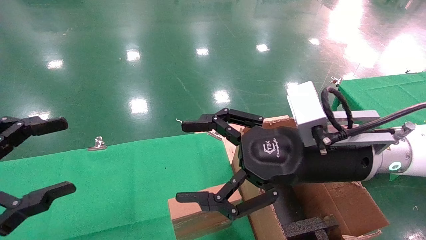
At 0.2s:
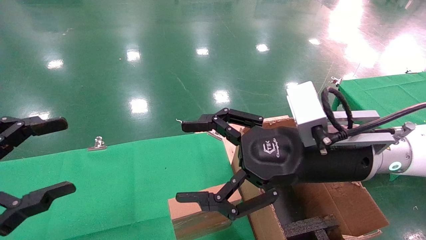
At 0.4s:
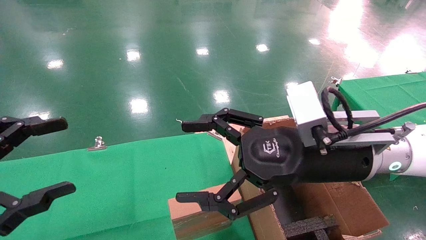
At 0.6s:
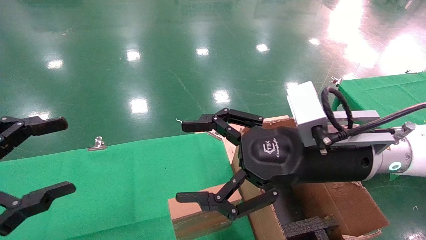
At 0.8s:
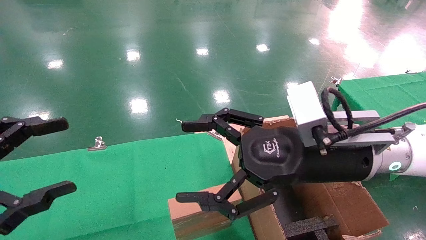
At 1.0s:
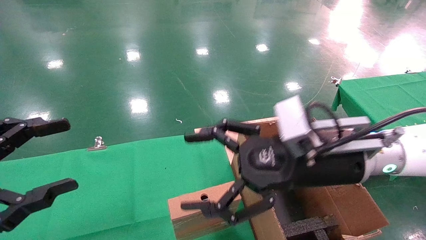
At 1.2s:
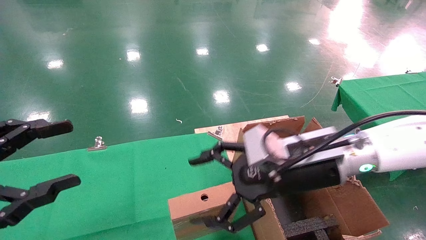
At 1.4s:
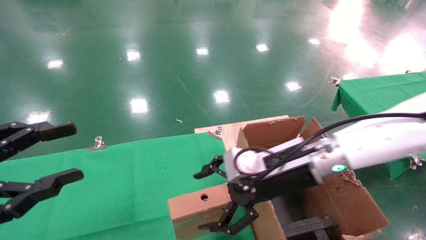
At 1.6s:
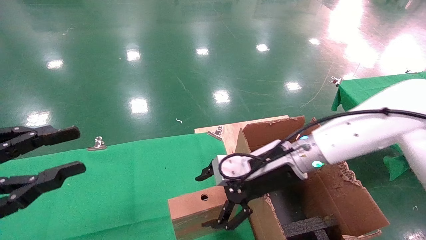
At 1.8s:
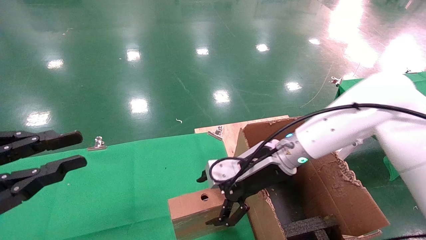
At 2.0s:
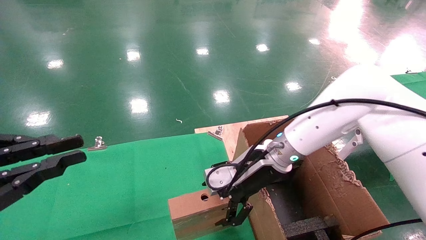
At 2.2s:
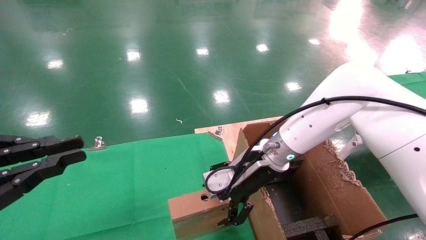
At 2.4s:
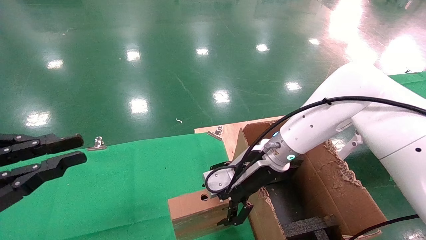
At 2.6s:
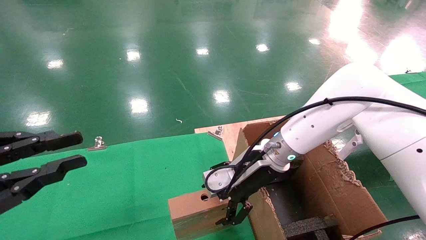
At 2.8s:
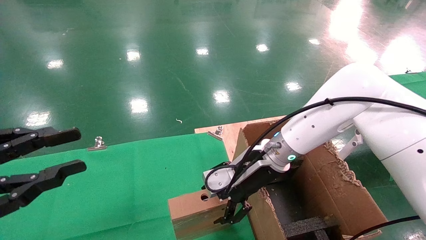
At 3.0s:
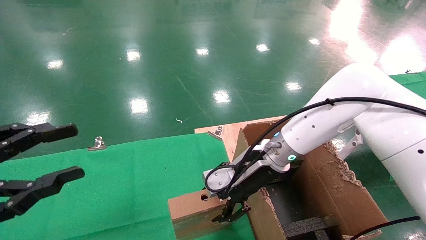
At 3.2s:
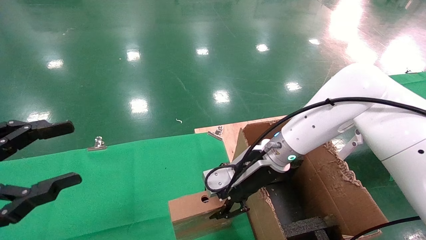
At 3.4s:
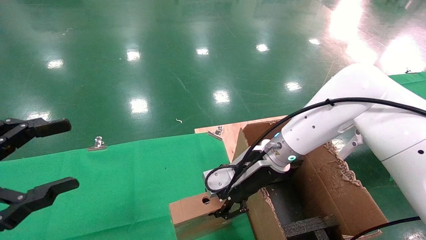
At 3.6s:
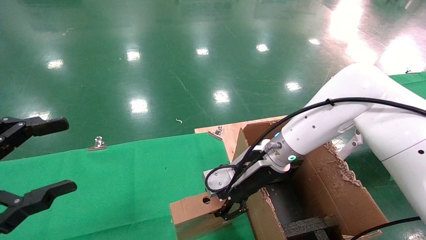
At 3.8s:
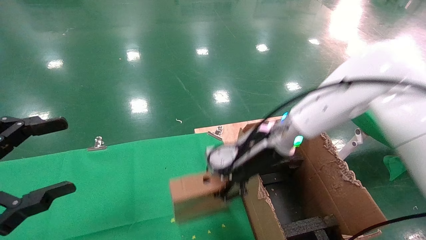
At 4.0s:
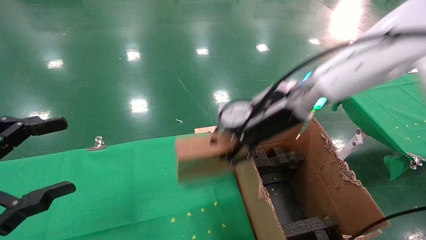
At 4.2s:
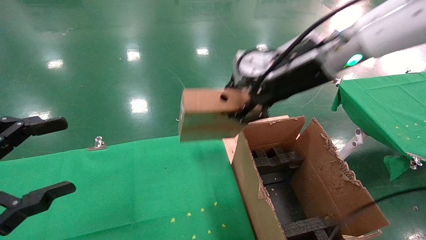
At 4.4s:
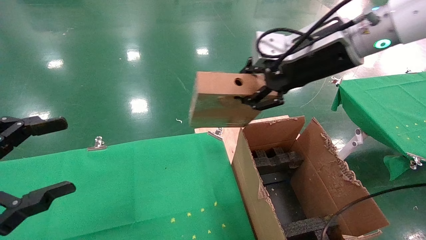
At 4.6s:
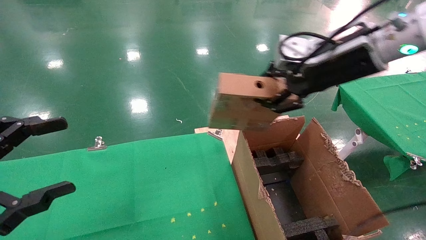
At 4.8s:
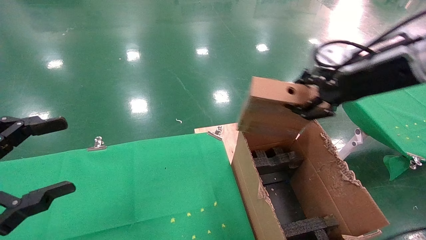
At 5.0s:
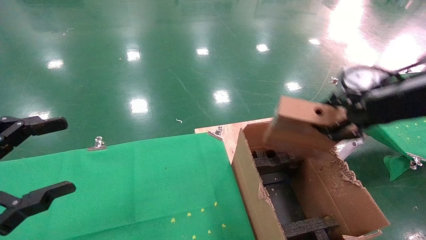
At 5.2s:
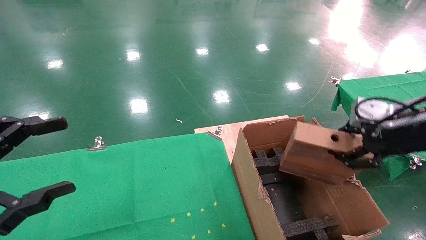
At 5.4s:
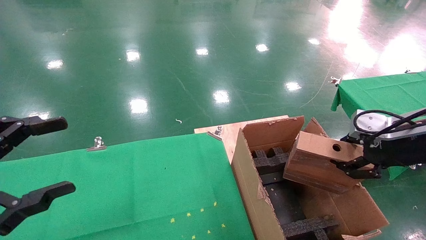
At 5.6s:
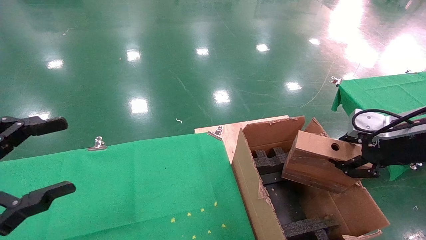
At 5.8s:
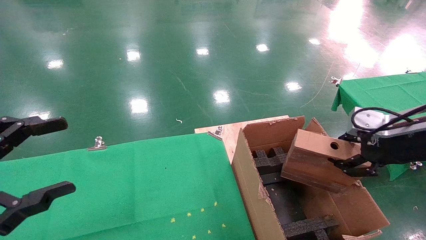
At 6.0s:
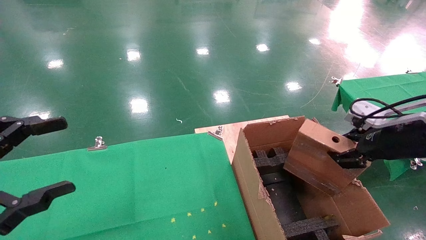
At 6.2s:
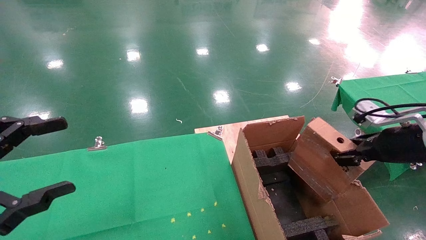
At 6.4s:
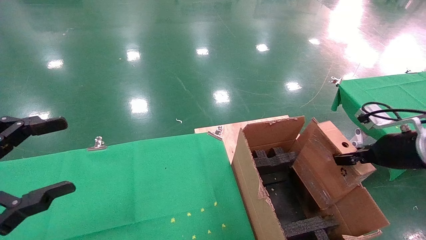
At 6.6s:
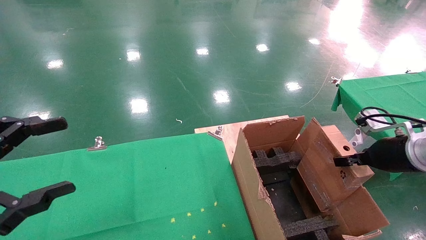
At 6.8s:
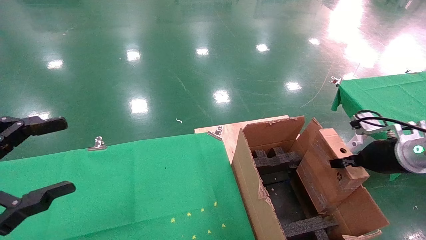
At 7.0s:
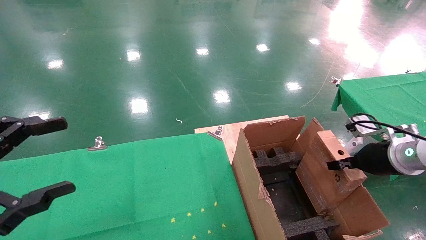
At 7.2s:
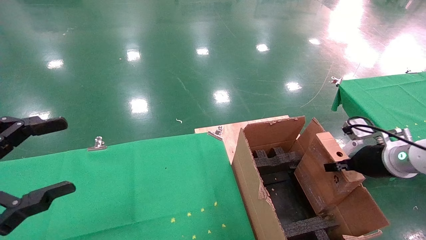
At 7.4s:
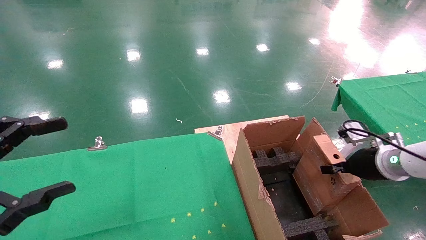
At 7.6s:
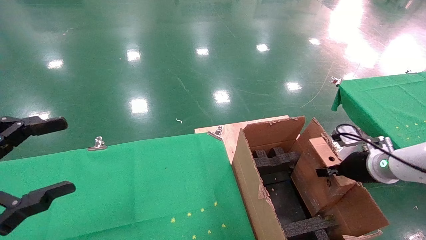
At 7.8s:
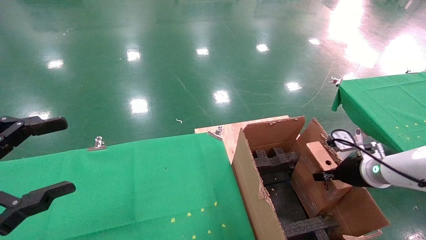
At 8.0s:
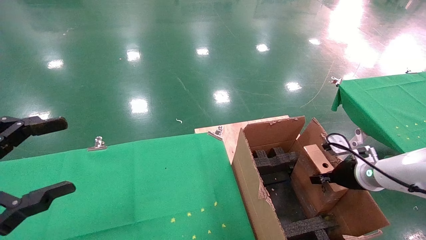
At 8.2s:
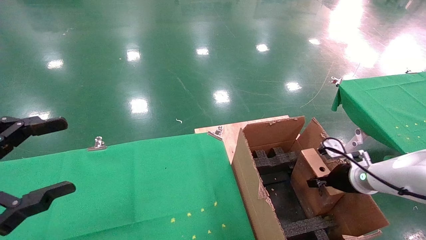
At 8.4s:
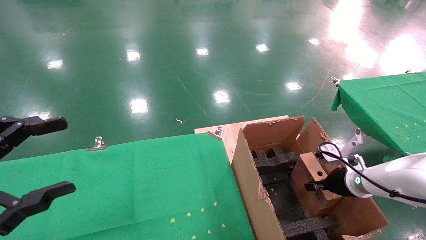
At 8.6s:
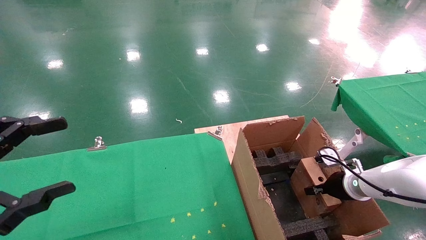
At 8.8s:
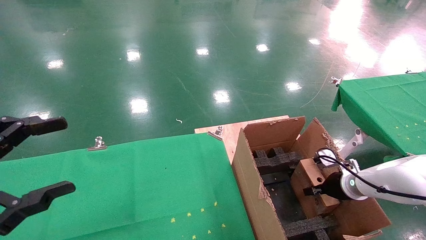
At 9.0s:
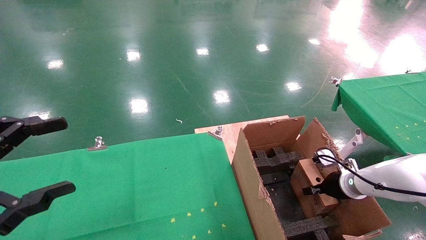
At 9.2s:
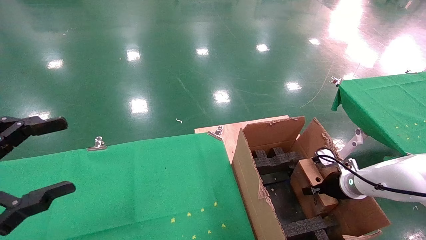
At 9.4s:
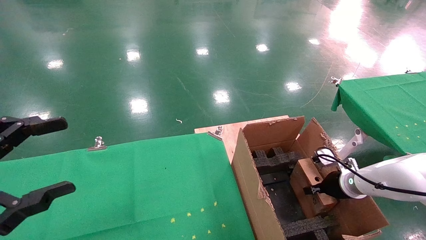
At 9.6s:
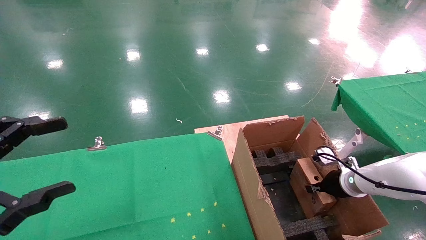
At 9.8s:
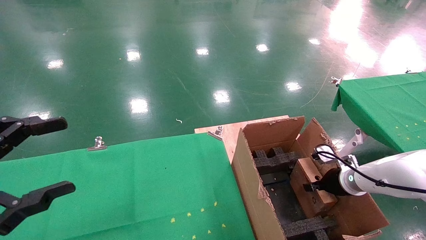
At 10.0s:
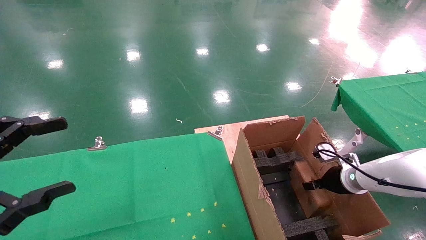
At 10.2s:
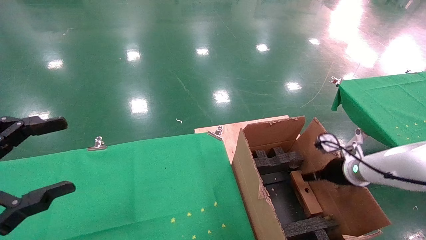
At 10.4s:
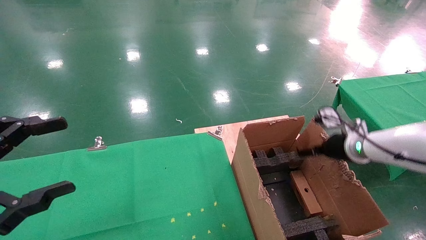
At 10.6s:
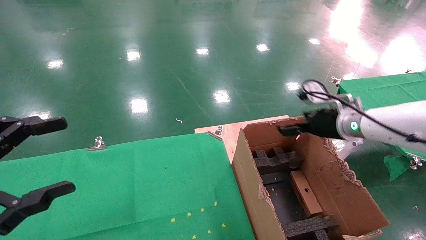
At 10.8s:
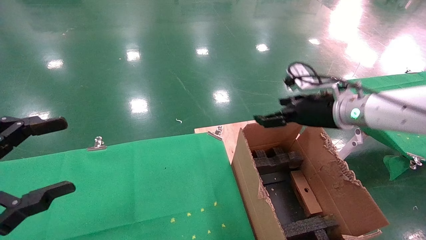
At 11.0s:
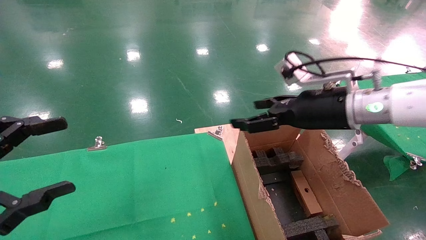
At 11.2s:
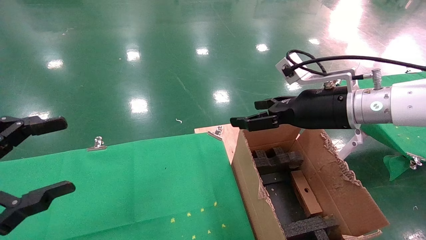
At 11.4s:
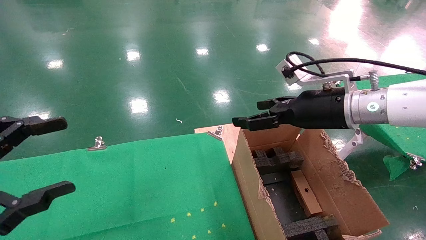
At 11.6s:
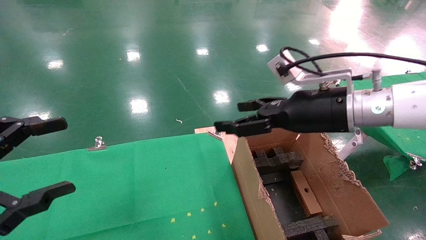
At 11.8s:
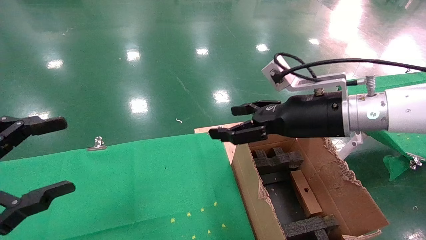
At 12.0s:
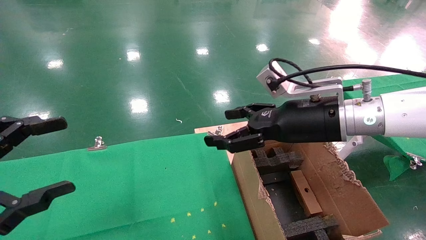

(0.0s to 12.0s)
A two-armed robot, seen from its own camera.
Task of the whole recording: using a robotic arm to pick up a cardboard box and palace it the carton.
Step, 1.0s - 3.4s: Pick up the mouse and the power cord paper box.
Step, 3.6s - 10.6s: Place the mouse and the power cord paper box into the container.
0.0s - 1.6s: The right gripper shifts some 10 cm forward and downward; the left gripper closes up.
1.6s - 3.0s: The grippers make only small movements.
3.0s - 4.4s: The right gripper goes approximately 20 cm upward and to the right, and closes up, while the left gripper opens up.
4.4s - 6.0s: The right gripper shifts some 20 cm to the right, downward and backward.
6.0s - 7.6s: The right gripper shifts approximately 15 cm downward and forward.
7.6s - 9.0s: The right gripper moves downward, some 10 cm.
9.0s - 10.4s: The right gripper shifts some 10 cm upward, and opens up.
10.4s - 12.0s: The right gripper moves to the left, upward and backward, roughly 20 cm.

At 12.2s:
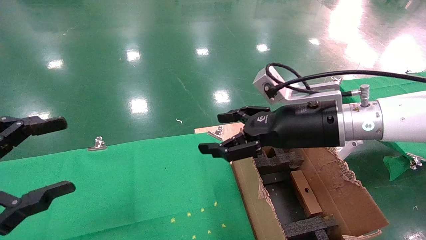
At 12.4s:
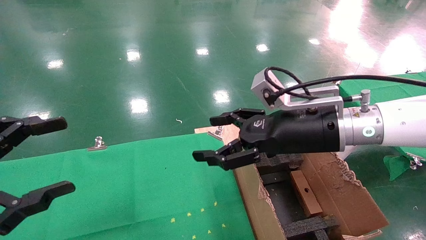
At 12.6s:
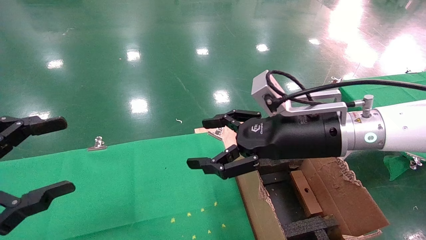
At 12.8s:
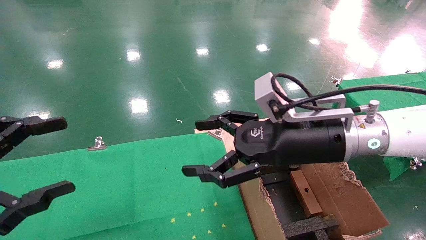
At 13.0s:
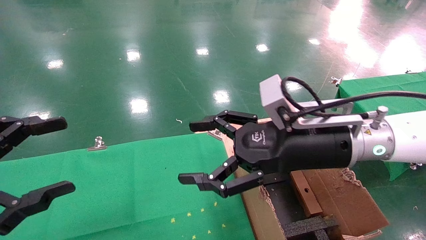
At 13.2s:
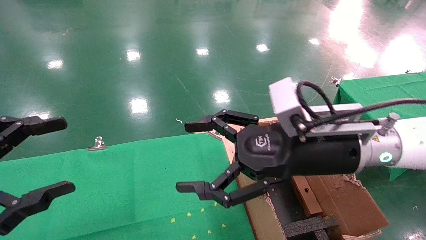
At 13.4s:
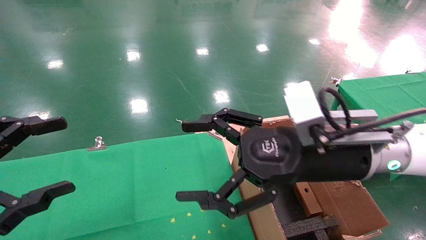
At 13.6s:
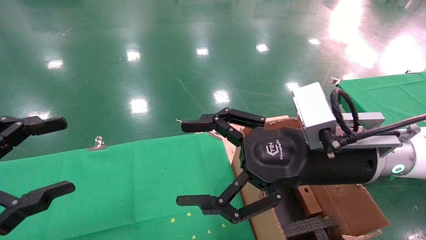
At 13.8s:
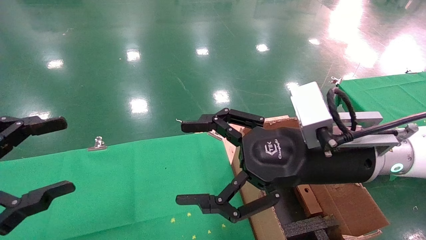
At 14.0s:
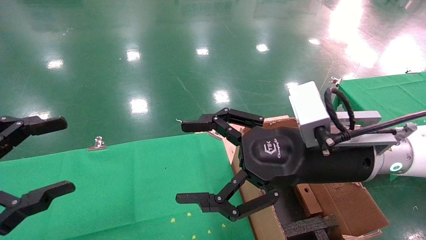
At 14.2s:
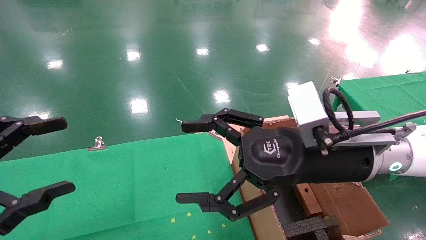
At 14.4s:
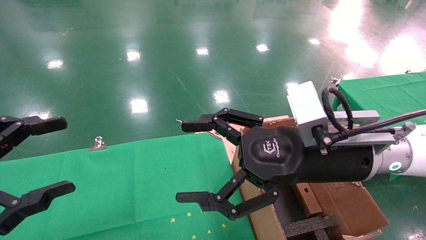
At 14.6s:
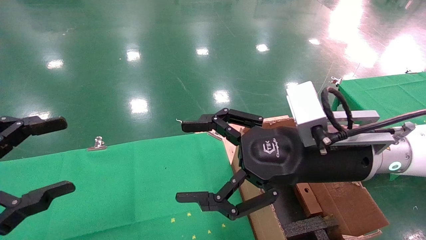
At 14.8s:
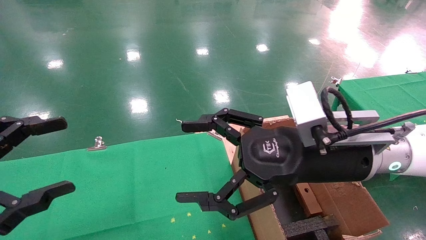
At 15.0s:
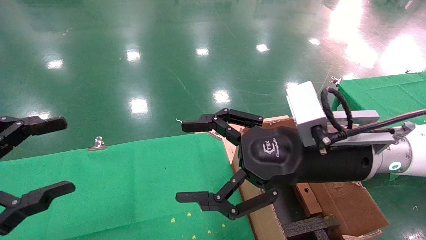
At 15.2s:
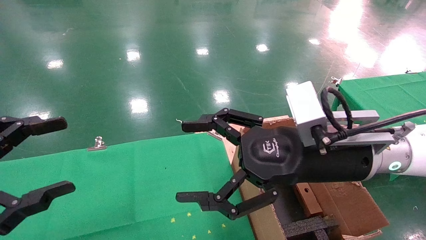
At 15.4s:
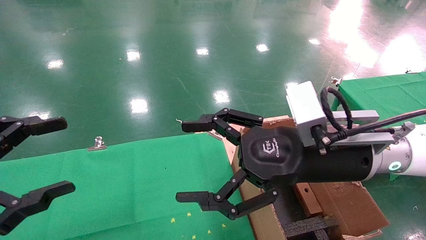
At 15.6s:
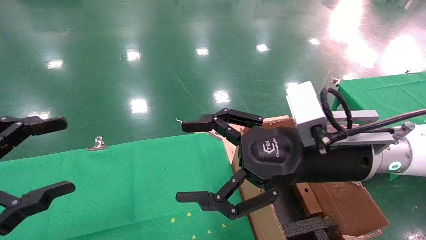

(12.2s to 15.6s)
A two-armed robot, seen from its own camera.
Task of the whole recording: using a robotic arm to pick up a cardboard box and palace it the carton.
12.2s - 13.8s: The right gripper shifts some 5 cm backward.
13.8s - 15.6s: Both grippers stay put.

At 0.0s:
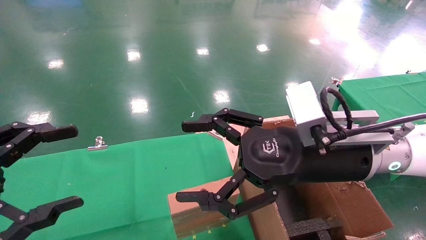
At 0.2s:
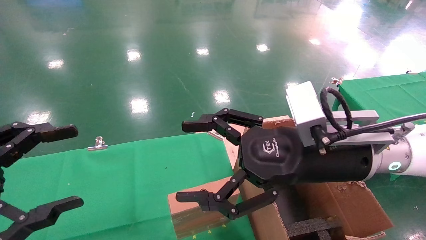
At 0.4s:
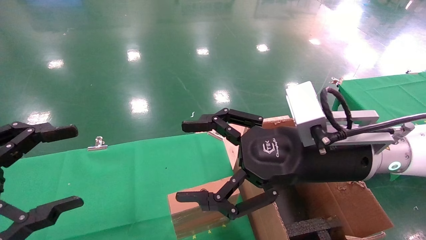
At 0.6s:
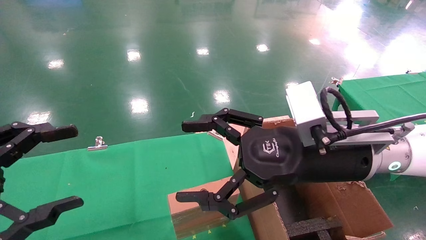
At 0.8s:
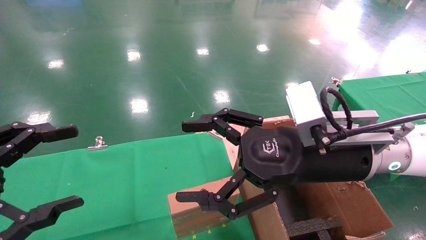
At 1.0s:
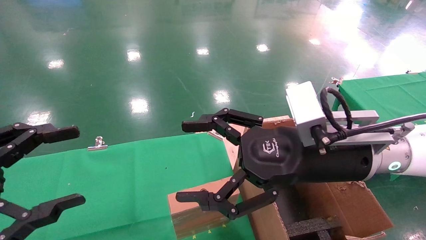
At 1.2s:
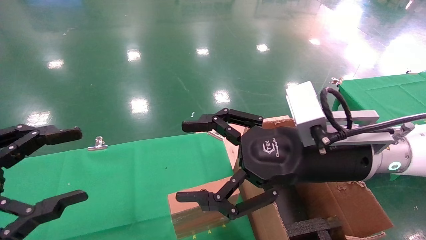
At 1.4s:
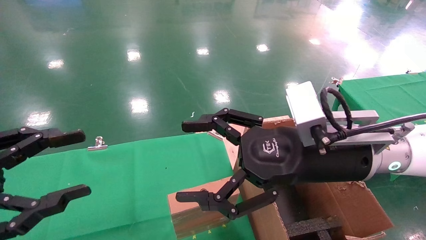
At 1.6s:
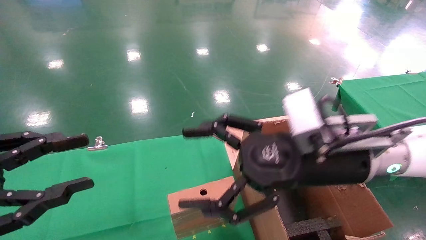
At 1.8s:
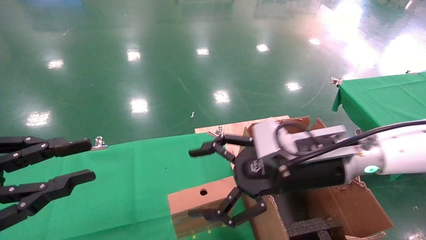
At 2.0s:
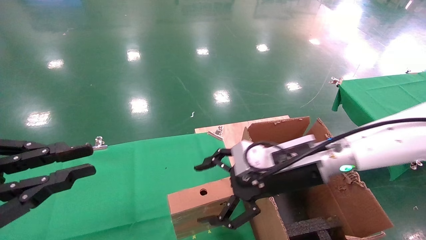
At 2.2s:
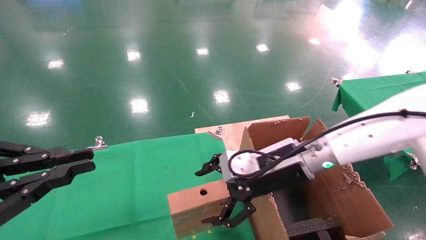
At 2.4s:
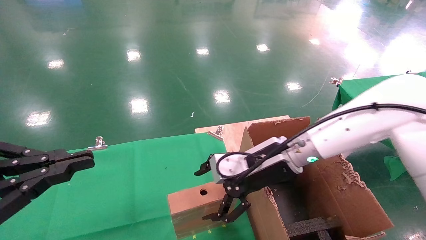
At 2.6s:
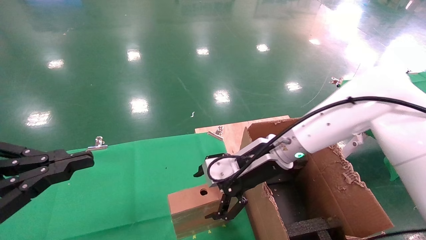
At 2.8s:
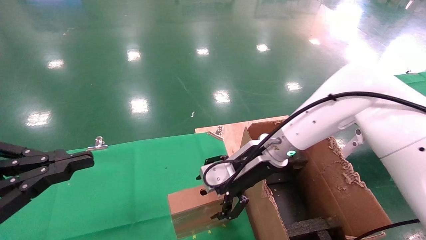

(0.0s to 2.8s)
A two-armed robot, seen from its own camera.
Task of the whole recording: using a robotic arm to pick up a cardboard box and palace it the carton.
0.0s - 1.4s: Neither gripper changes place.
1.4s - 2.8s: The right gripper moves forward and downward, approximately 15 cm, while the left gripper closes its fingers.
